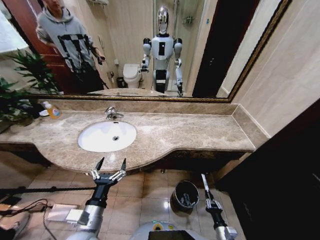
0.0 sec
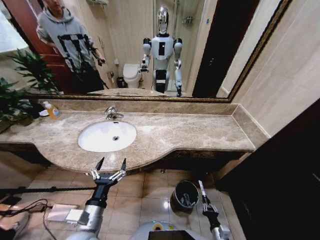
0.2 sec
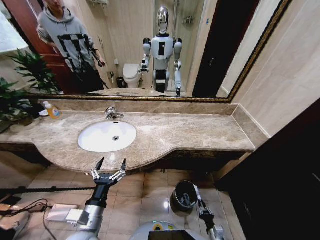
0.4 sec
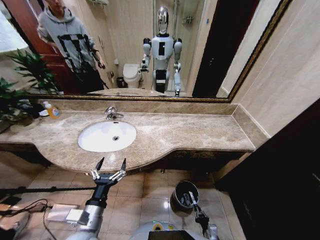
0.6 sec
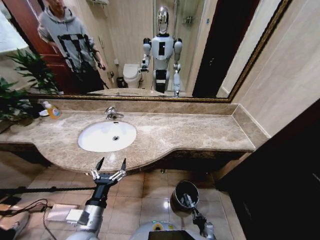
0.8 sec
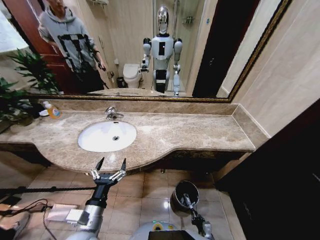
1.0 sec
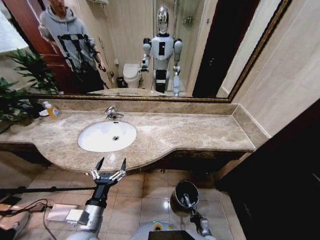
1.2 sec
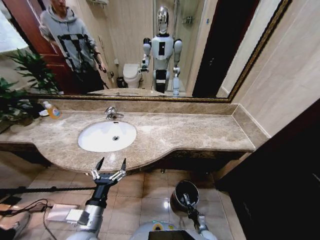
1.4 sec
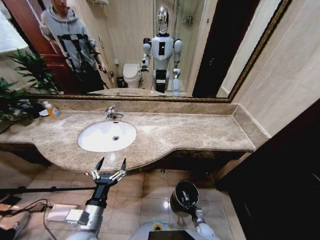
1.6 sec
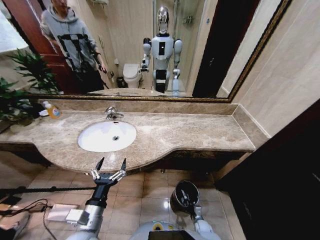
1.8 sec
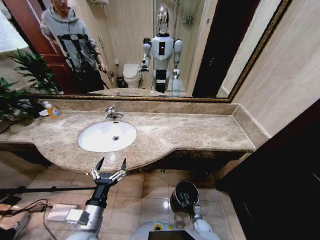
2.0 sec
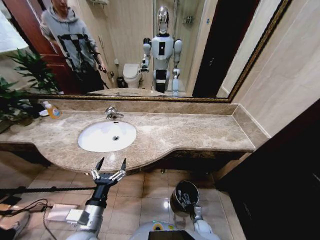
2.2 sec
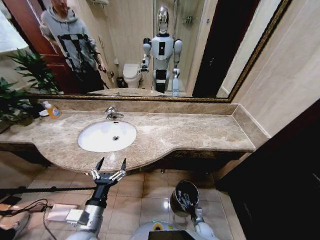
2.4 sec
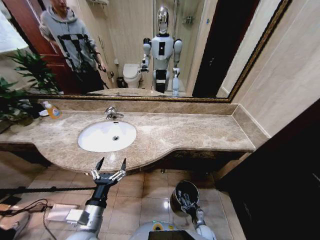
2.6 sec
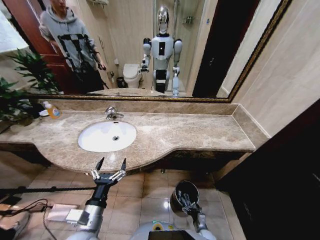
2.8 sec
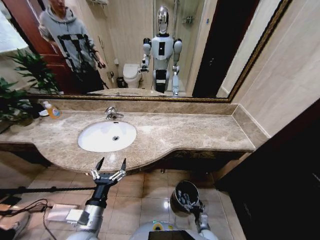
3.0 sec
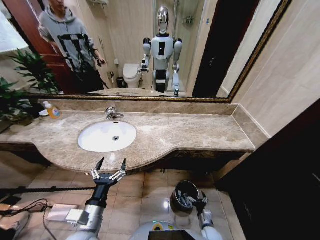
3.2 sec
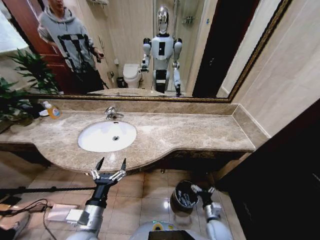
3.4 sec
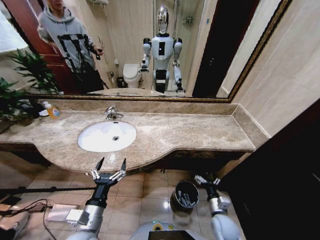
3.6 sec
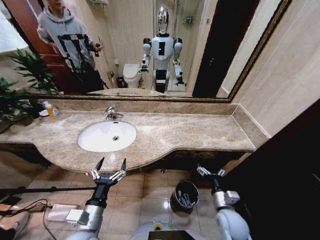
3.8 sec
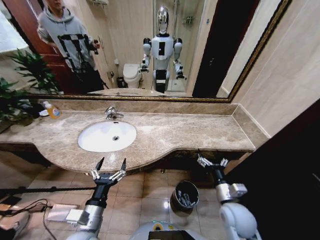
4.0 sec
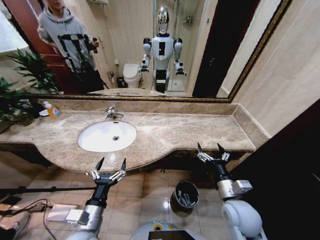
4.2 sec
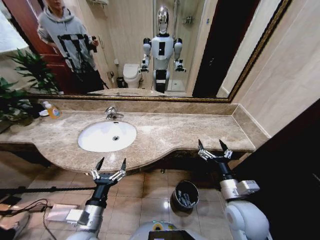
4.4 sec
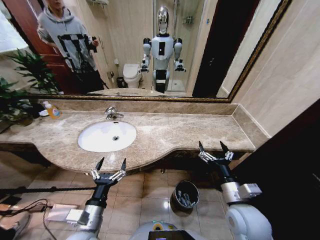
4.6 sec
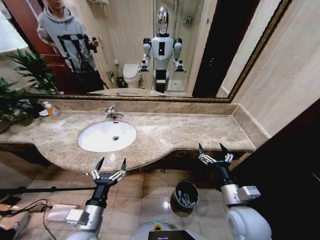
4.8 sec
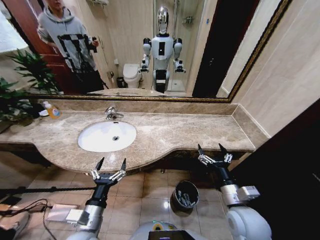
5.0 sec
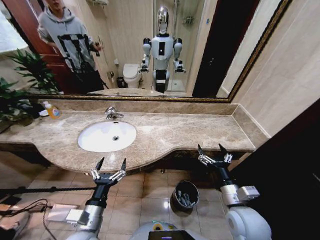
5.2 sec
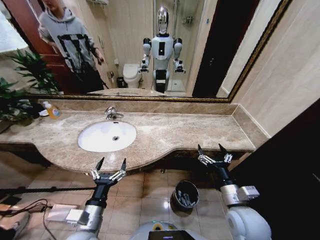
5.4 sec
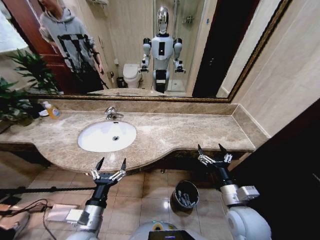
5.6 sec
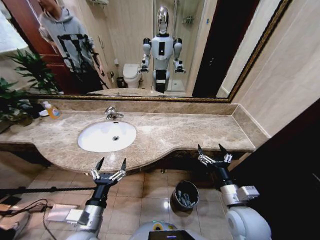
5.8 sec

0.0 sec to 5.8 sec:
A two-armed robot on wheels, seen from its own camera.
Task of the whole recording: Pick up the trash from the sink and place it in the trash bin.
0.0 sec to 1.4 sec: The right gripper heads downward, covering approximately 15 cm.
2.8 sec to 4.4 sec: The right gripper is displaced upward by about 40 cm.
4.4 sec to 5.8 sec: The grippers stay close to where they were, moving slightly.

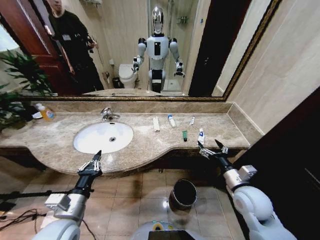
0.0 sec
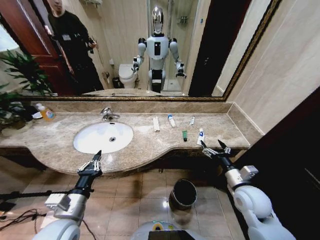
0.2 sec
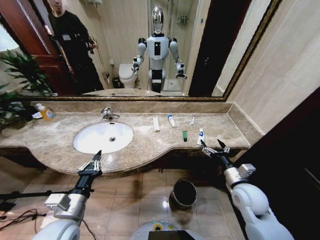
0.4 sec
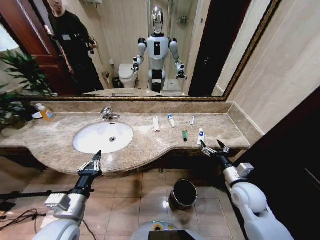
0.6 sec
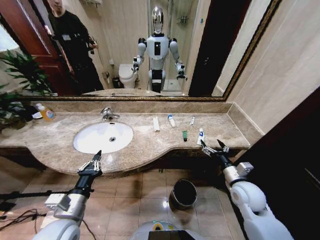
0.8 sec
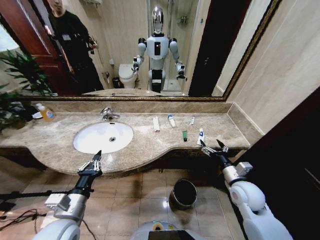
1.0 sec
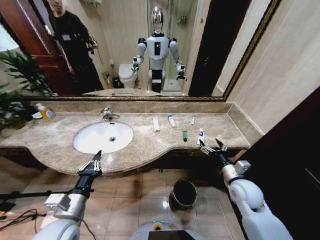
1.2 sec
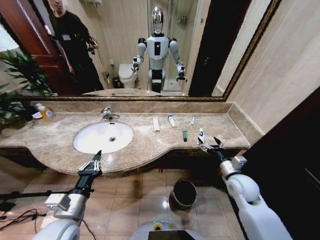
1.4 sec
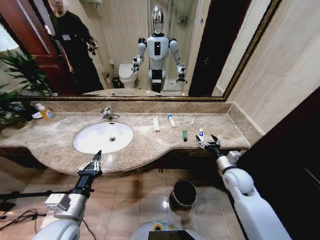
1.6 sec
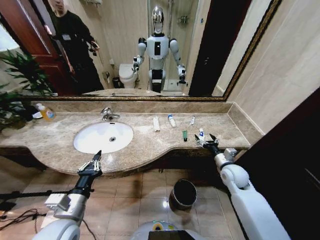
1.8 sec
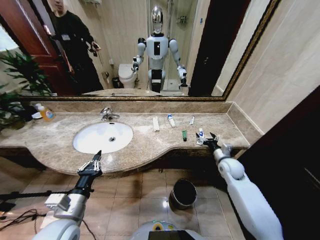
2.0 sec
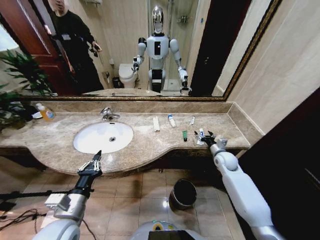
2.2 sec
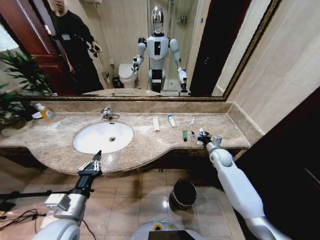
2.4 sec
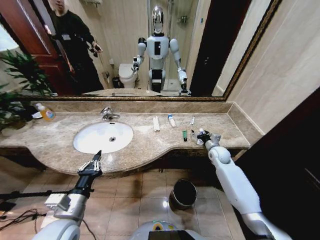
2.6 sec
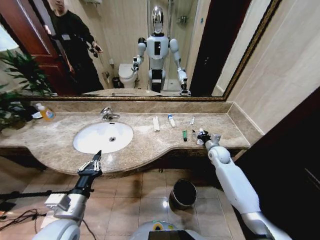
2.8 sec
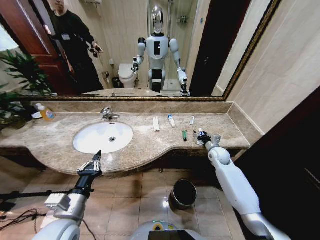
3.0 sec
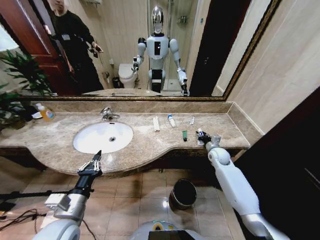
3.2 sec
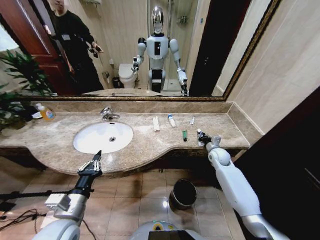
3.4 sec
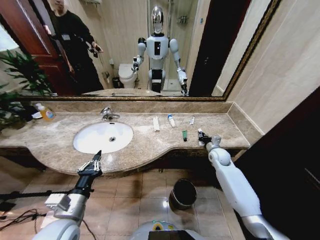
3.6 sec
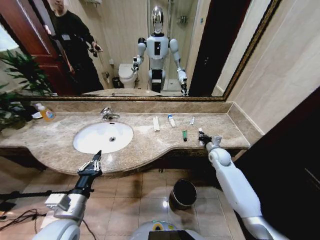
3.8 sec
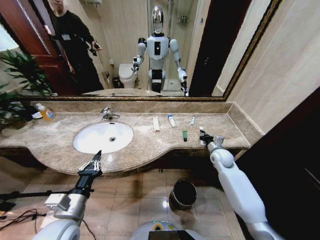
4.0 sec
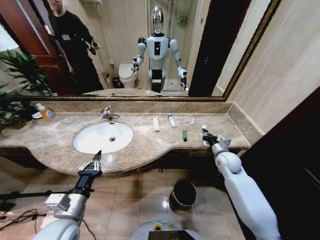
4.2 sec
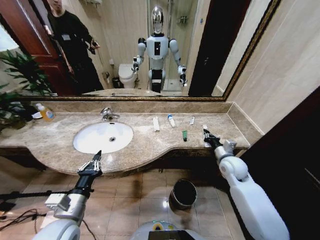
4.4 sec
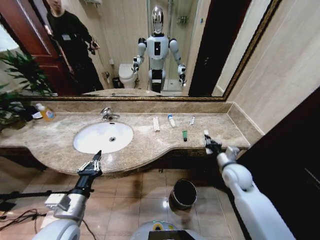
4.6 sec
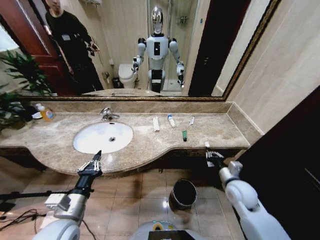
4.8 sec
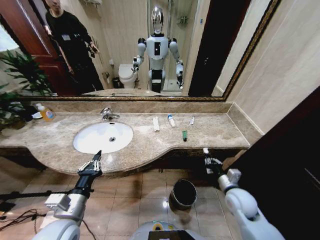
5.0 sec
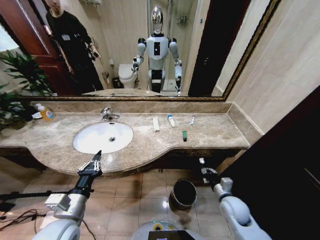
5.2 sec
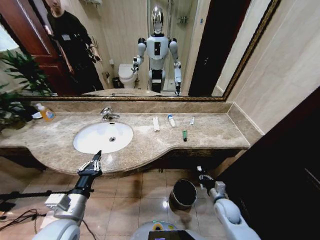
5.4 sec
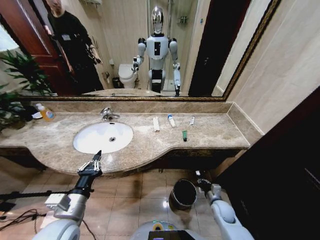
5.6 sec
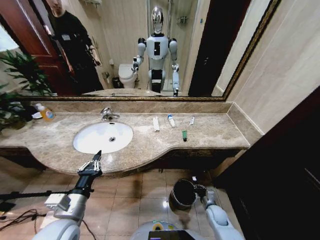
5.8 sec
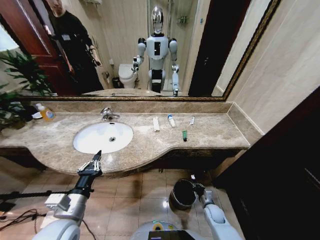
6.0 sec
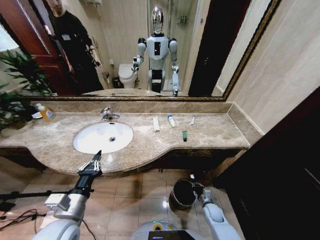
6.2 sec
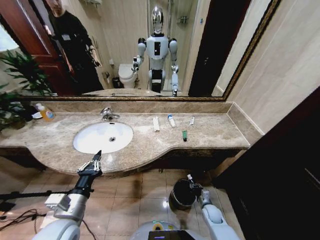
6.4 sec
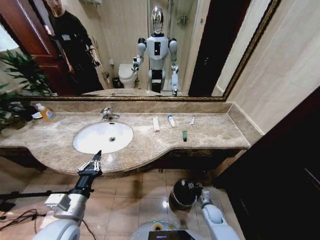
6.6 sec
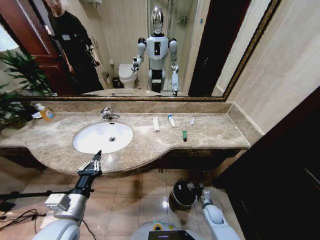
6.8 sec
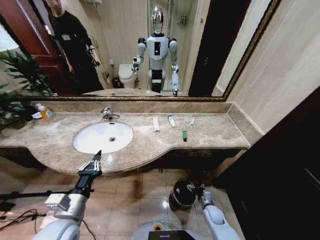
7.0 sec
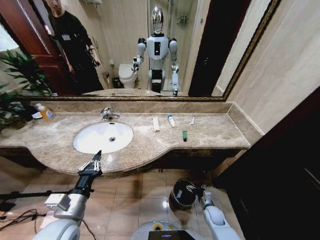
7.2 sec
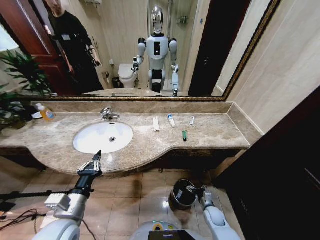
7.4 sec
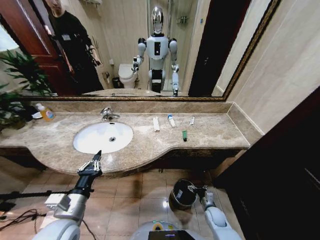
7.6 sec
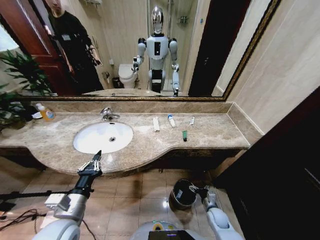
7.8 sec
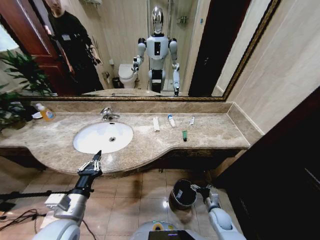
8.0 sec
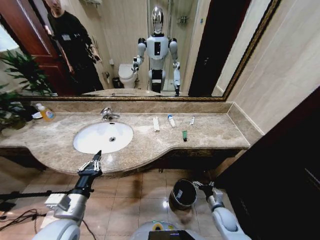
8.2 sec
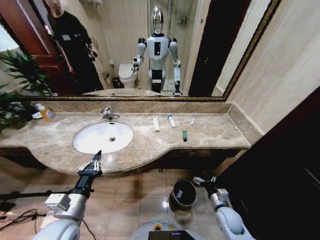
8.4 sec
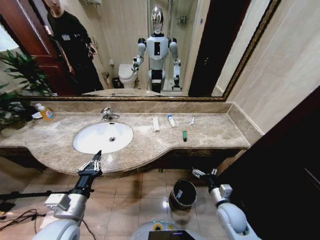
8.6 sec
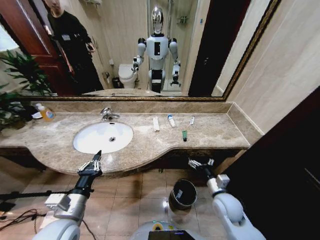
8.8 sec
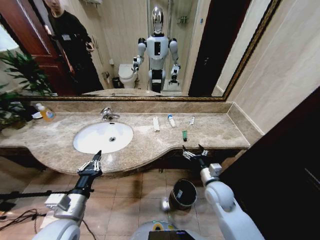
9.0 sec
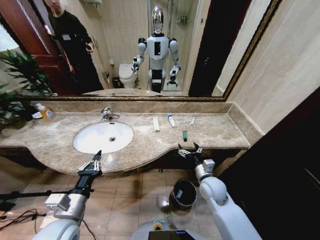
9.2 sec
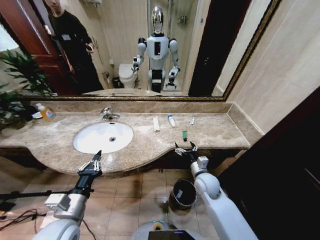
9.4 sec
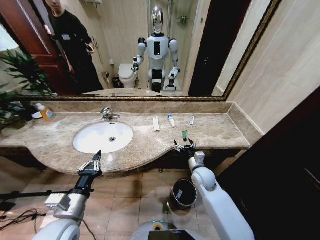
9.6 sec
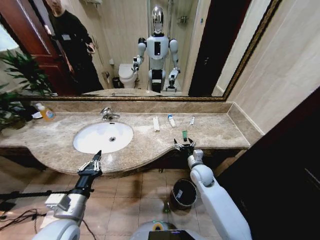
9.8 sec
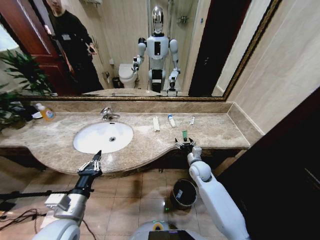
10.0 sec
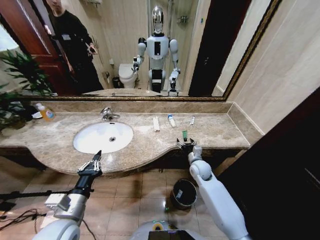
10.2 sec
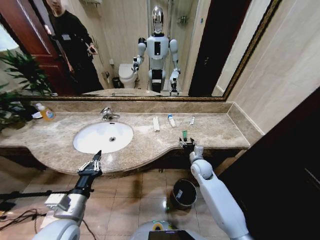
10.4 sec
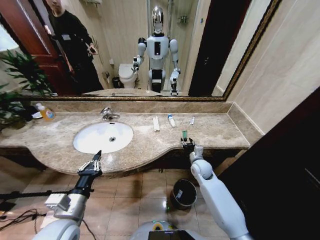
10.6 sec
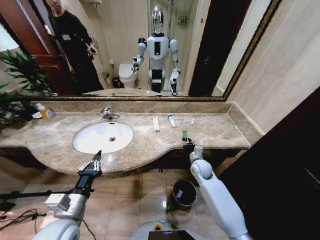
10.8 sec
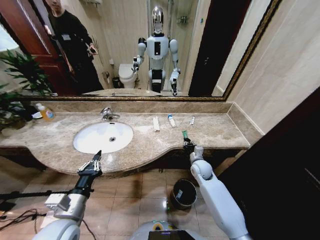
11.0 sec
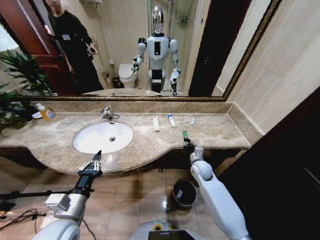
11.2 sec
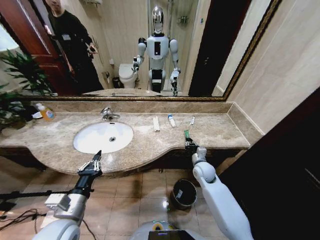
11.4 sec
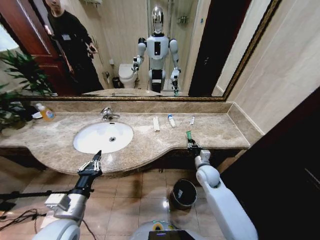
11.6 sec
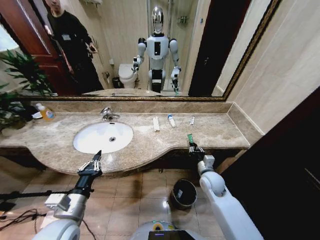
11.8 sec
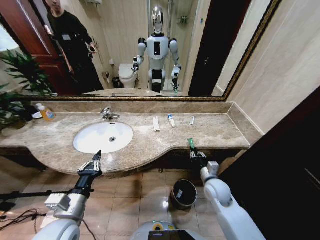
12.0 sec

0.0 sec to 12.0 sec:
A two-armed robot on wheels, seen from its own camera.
Task of the whole recording: Pick up the trash from the sink and place it in the trash bin.
1.6 sec to 3.0 sec: The right gripper travels forward by some 15 cm.
3.0 sec to 4.4 sec: The right gripper heads backward and upward, covering some 10 cm, and closes up.
4.4 sec to 6.0 sec: The right gripper goes roughly 30 cm downward.
6.0 sec to 7.6 sec: The right gripper opens.
7.6 sec to 9.0 sec: The right gripper travels upward by approximately 25 cm.
9.0 sec to 10.4 sec: The right gripper goes some 15 cm forward.
10.4 sec to 12.0 sec: The right gripper goes some 10 cm backward, and closes.

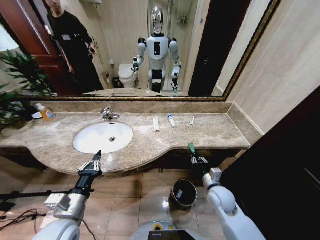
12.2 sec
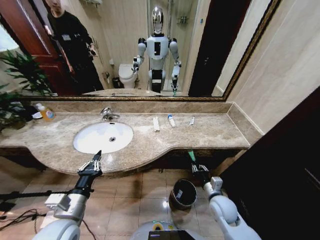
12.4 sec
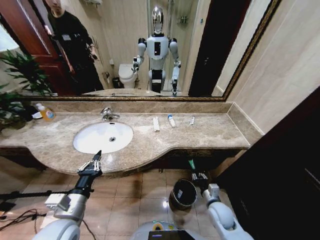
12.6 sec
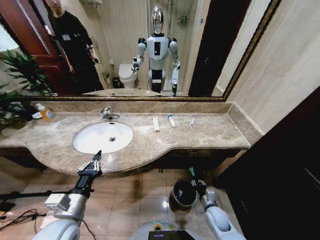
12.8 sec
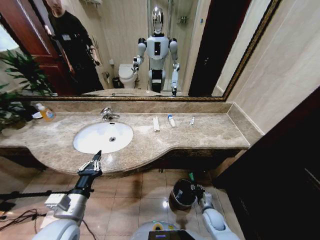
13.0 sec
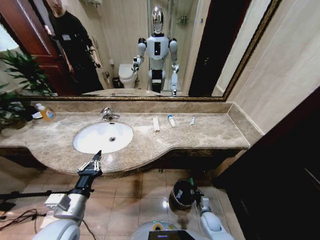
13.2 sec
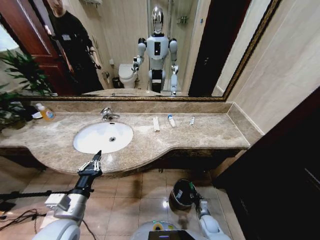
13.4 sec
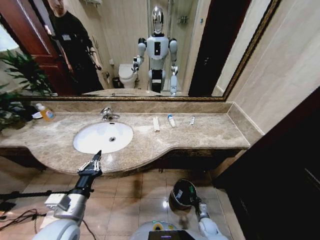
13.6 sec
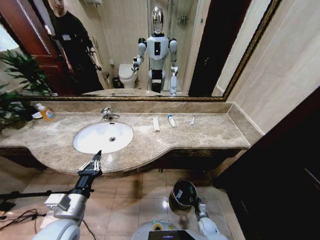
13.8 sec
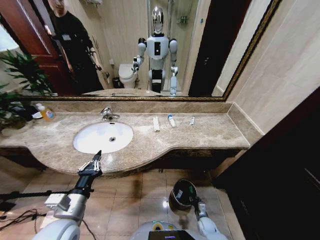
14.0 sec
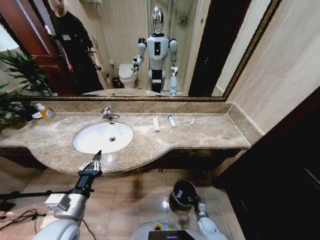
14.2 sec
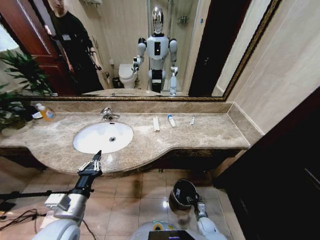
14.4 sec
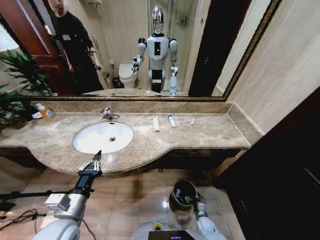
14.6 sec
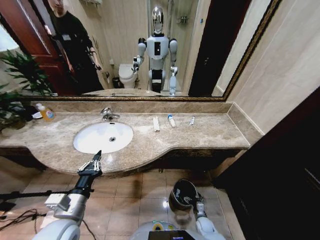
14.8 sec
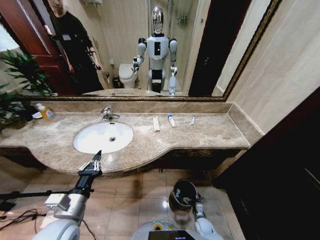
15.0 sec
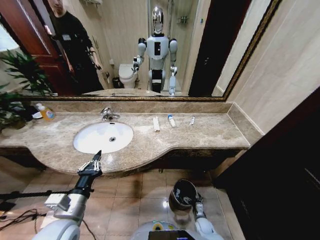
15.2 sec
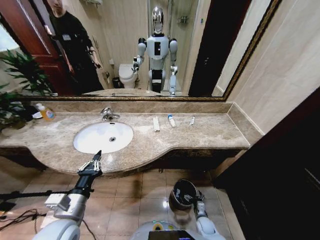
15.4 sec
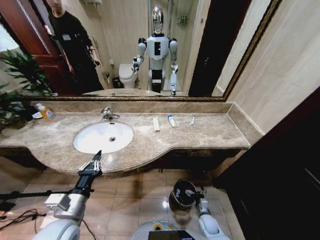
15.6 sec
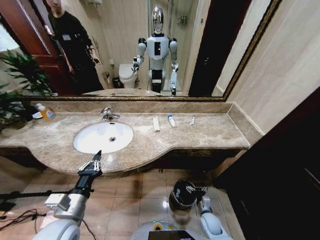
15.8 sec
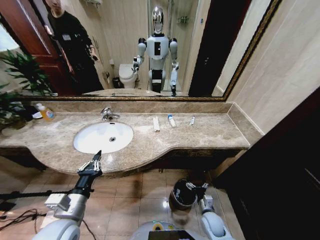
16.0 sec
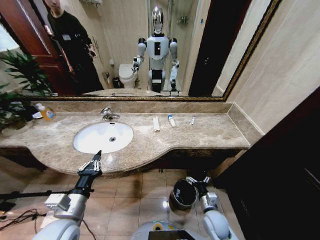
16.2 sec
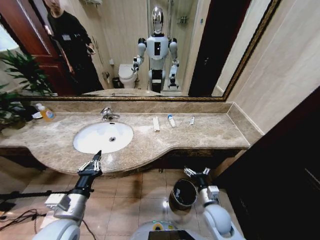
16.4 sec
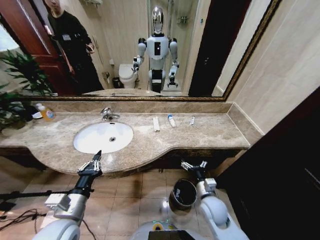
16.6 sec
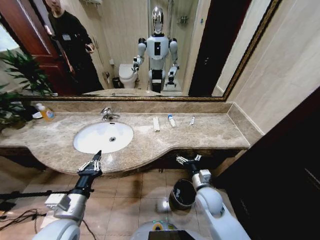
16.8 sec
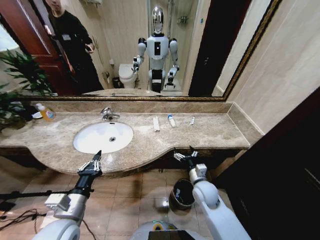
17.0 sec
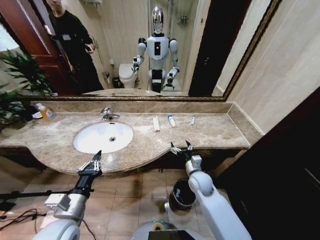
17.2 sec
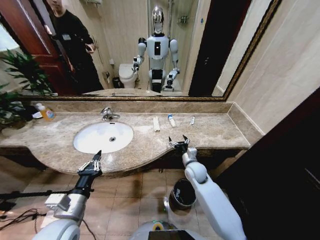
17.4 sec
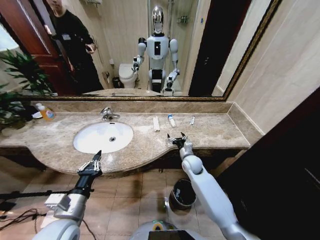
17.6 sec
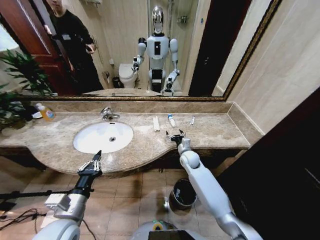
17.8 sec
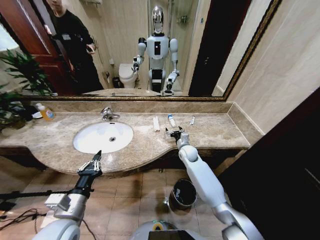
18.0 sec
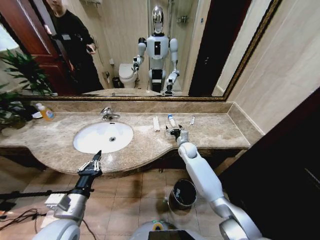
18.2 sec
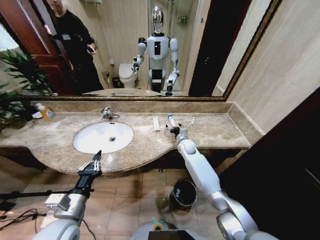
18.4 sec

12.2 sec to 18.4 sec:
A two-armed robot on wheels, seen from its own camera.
Task of the whole recording: Pick up the trash from the sink and place it in the trash bin.
12.2 sec to 13.8 sec: The right gripper travels downward by some 30 cm.
13.8 sec to 15.4 sec: The right gripper opens.
15.4 sec to 16.8 sec: The right gripper goes roughly 30 cm upward.
16.8 sec to 18.4 sec: The right gripper is displaced forward by some 25 cm.
